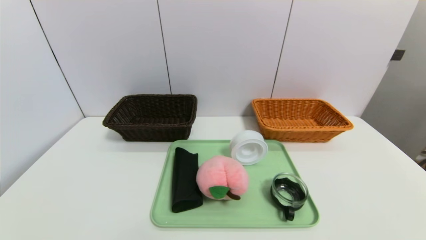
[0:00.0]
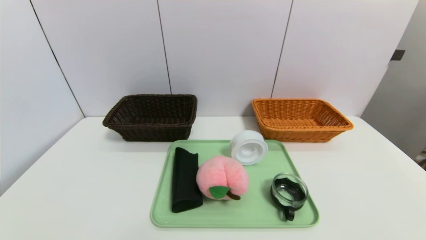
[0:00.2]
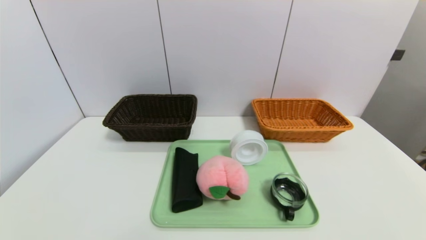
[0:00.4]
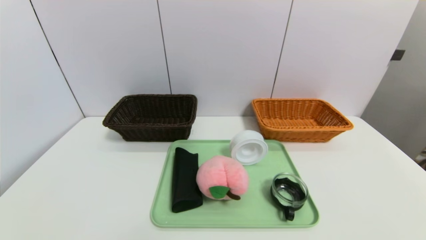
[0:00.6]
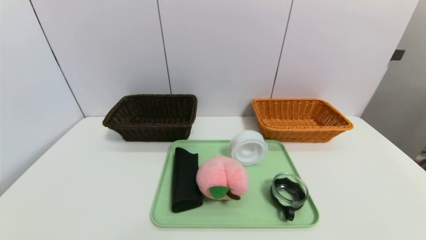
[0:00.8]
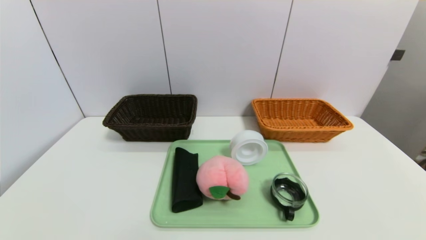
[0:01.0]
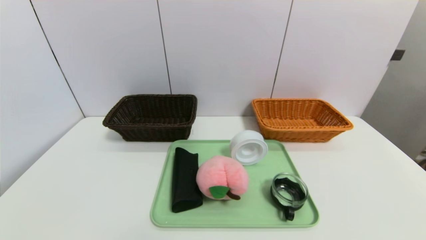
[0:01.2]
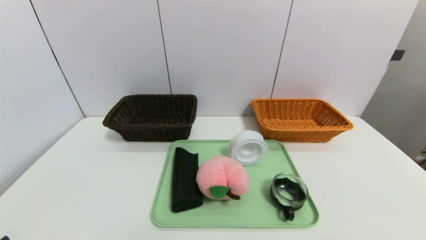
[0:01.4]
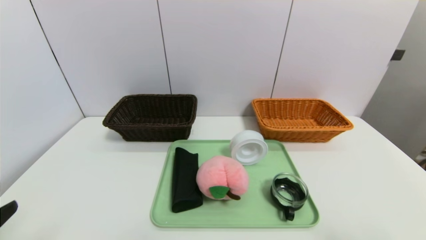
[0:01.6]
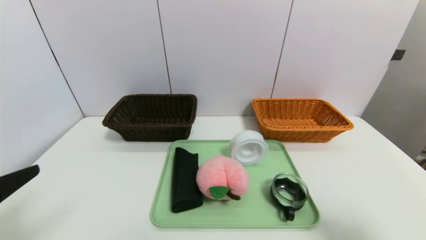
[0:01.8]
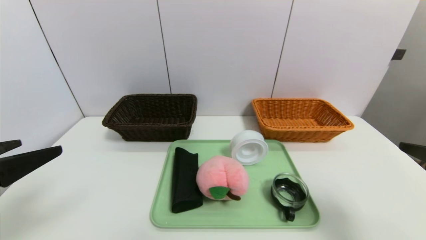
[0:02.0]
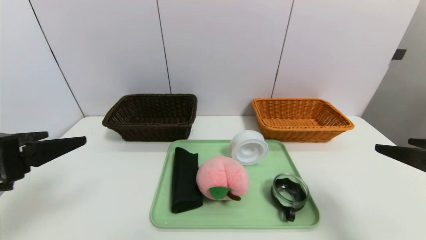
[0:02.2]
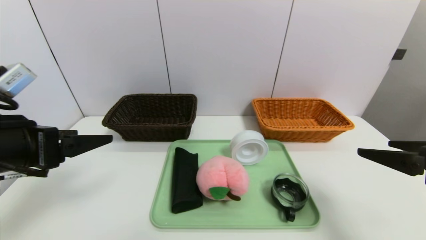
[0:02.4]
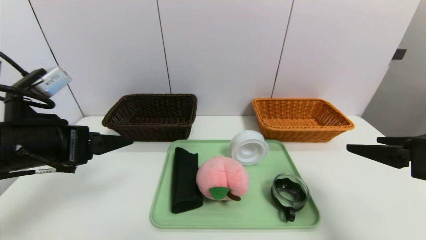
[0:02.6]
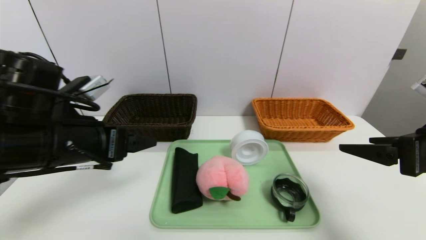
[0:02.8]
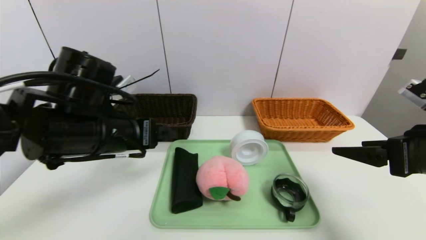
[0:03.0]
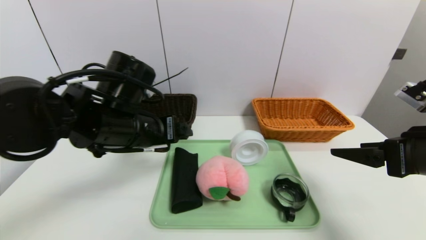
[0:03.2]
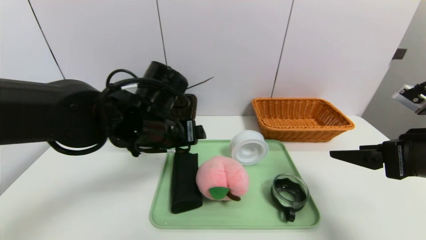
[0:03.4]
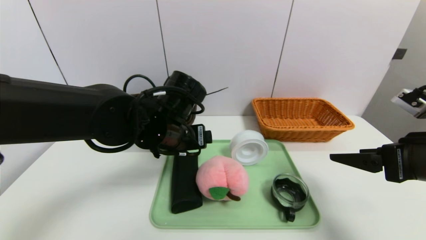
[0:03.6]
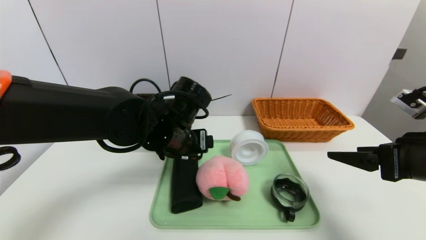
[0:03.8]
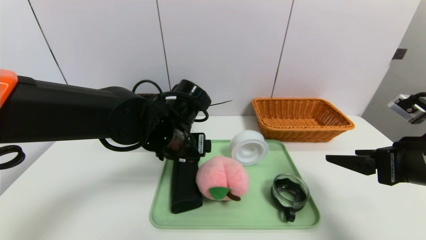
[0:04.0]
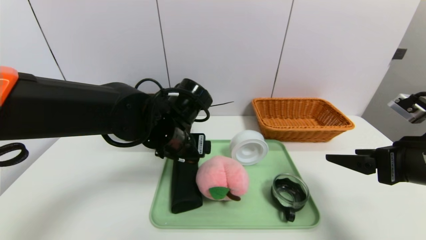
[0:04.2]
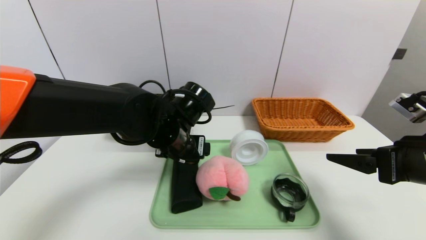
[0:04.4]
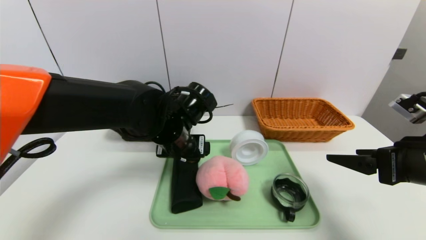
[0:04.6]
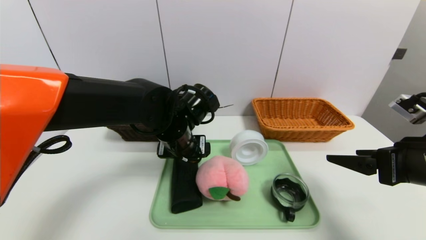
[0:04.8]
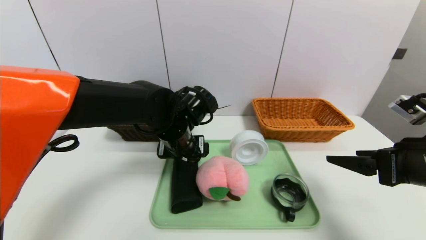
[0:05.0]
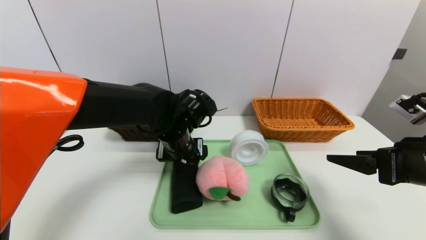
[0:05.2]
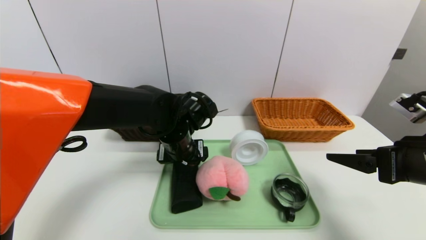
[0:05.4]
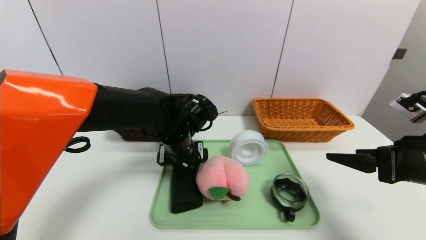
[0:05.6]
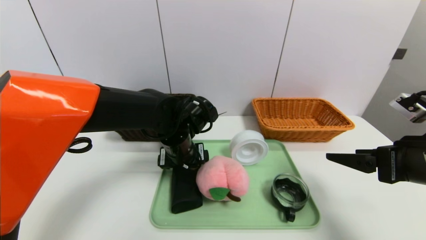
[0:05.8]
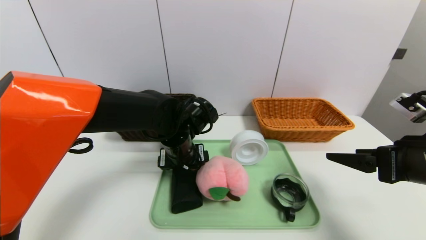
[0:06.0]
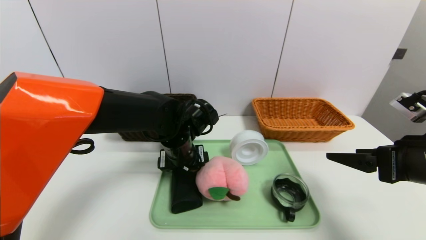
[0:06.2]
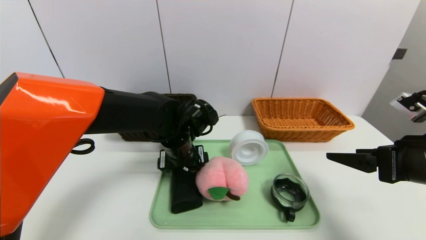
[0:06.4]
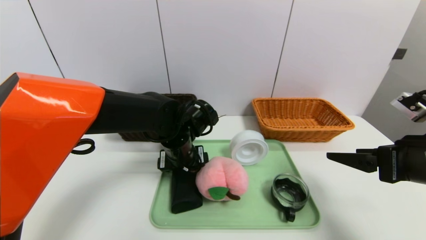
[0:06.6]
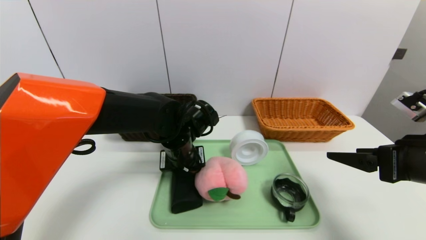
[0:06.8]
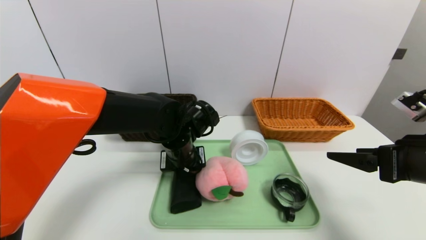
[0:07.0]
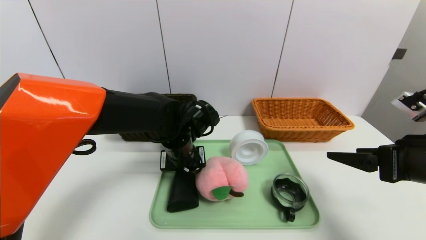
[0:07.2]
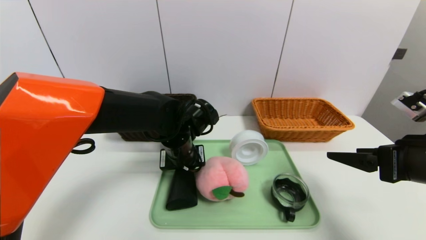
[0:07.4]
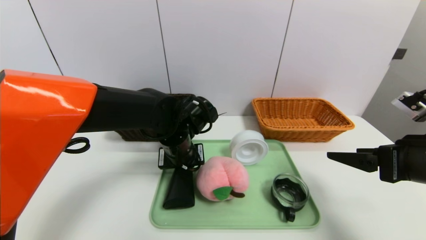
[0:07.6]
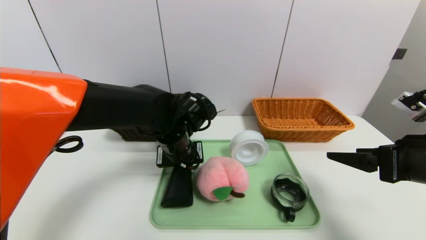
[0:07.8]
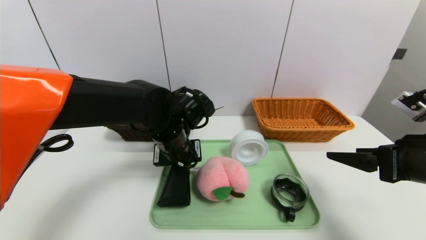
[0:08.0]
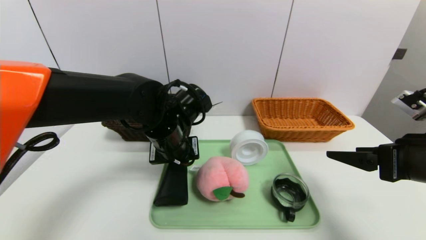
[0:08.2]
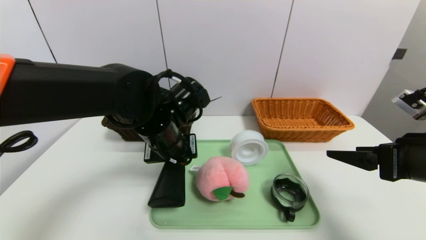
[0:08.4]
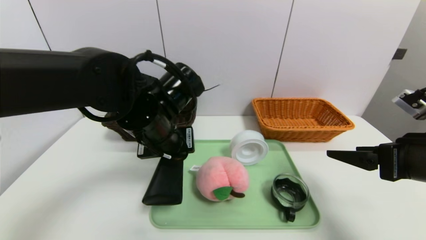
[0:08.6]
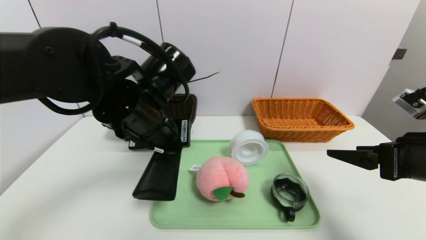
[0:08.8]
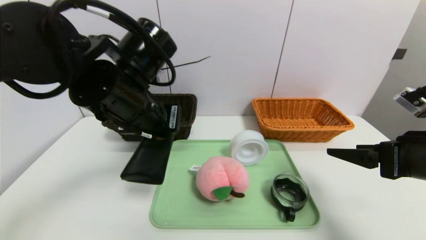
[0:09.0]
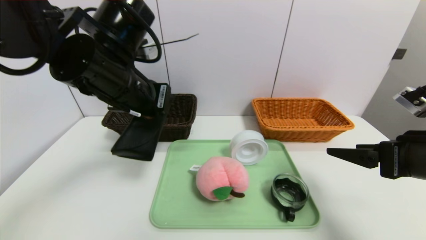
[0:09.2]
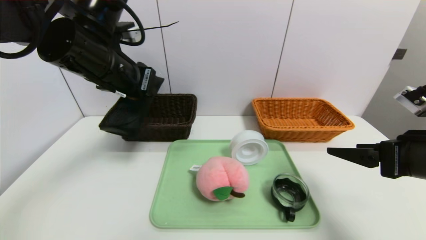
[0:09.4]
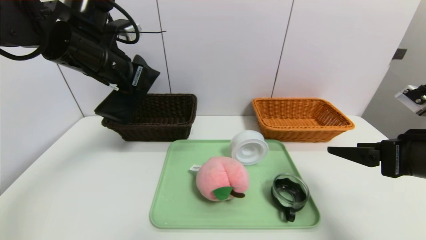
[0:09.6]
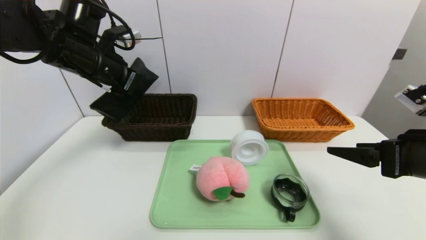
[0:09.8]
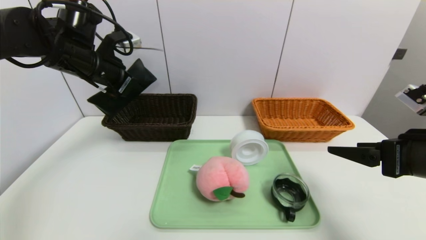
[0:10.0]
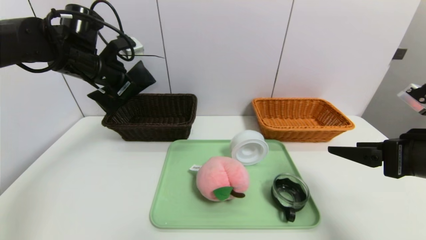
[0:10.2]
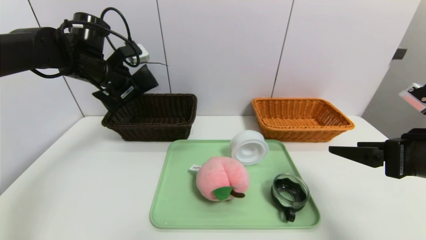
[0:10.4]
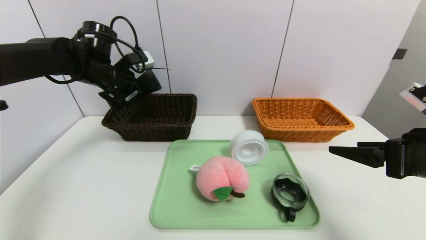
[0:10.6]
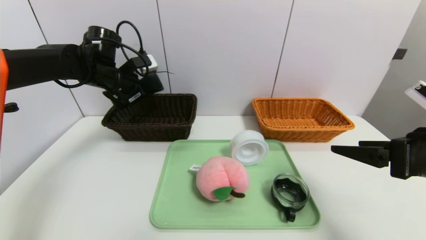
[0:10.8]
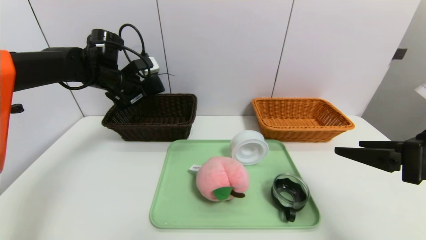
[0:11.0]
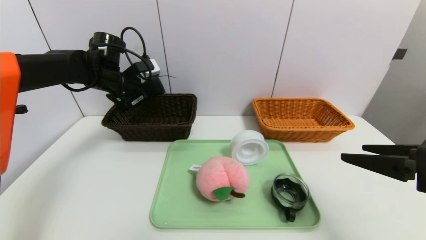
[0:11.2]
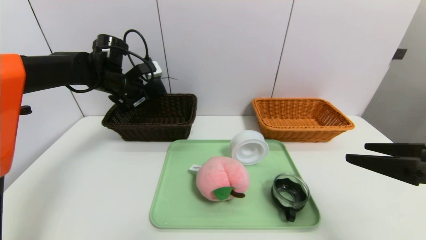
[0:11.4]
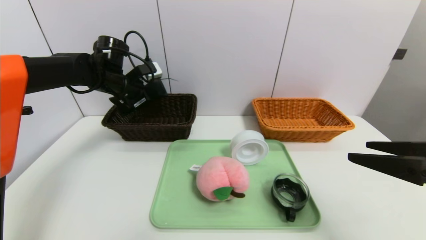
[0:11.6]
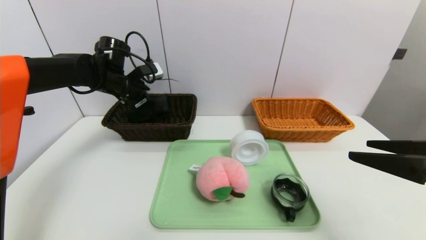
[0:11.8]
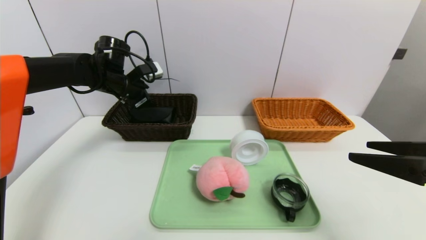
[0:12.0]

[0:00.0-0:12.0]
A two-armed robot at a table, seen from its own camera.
Task of the whole recording: place the food in the right basket with the right gripper, and place the non food items in the left basket with the left gripper.
0:01.6 to 0:03.0: The right gripper travels forward by about 15 cm. Meanwhile the left gripper shifts about 25 cm forward and to the right.
0:03.0 to 0:04.4: The left gripper is displaced to the right, forward and downward by roughly 10 cm.
0:04.4 to 0:06.0: The grippers move only a little.
0:06.0 to 0:07.6: The left gripper closes.
0:07.6 to 0:09.0: The left gripper shifts roughly 15 cm upward, backward and to the left.
0:09.0 to 0:10.4: The left gripper is displaced forward and to the left by about 20 cm.
0:10.4 to 0:12.0: The left gripper changes place by about 5 cm, and opens up.

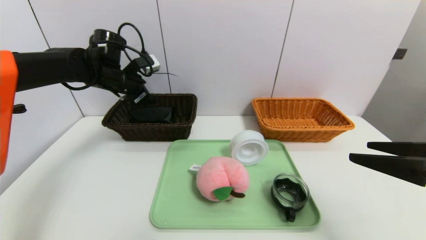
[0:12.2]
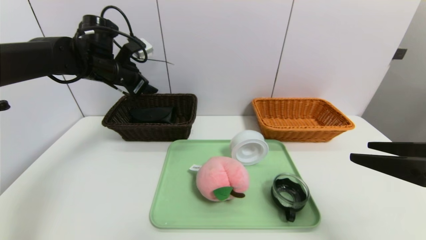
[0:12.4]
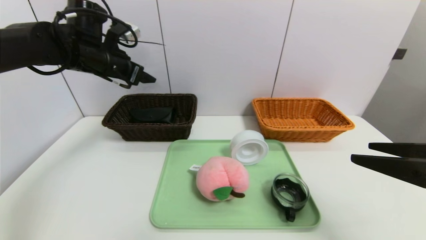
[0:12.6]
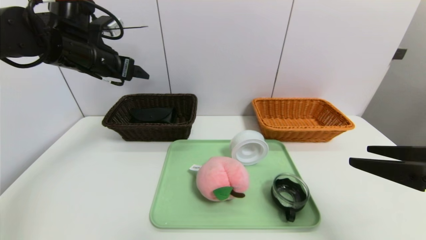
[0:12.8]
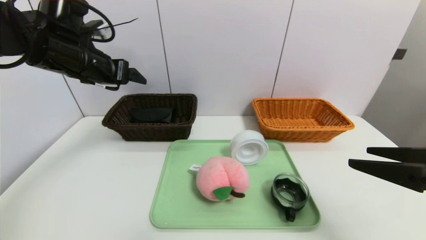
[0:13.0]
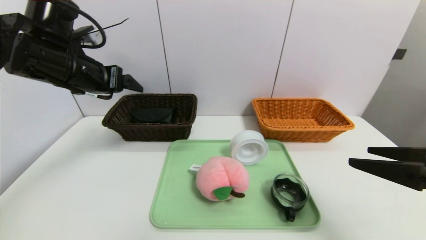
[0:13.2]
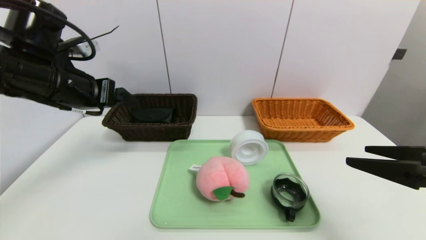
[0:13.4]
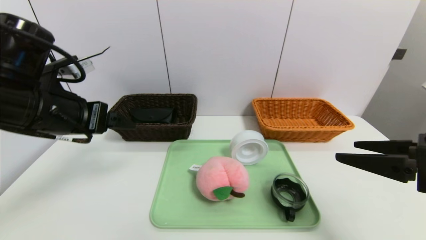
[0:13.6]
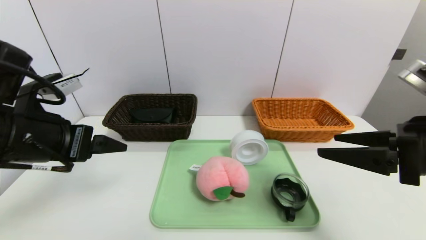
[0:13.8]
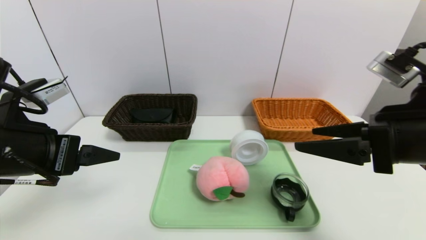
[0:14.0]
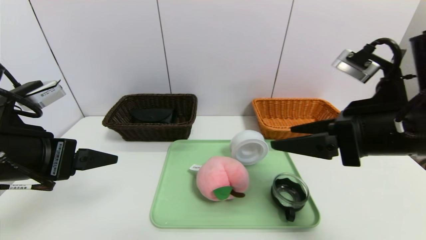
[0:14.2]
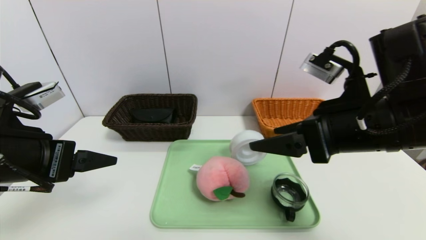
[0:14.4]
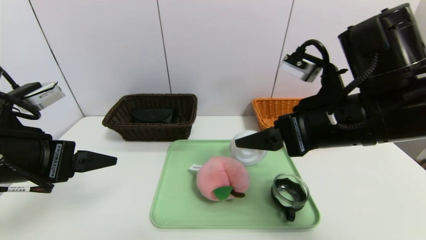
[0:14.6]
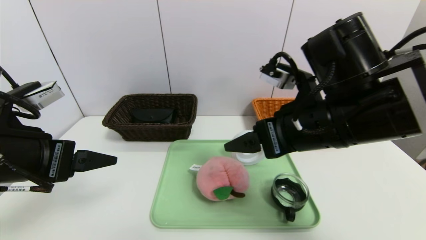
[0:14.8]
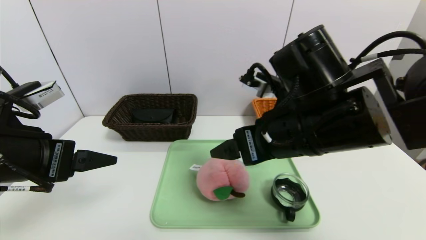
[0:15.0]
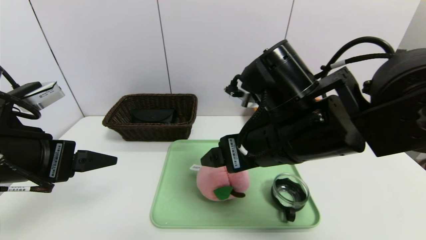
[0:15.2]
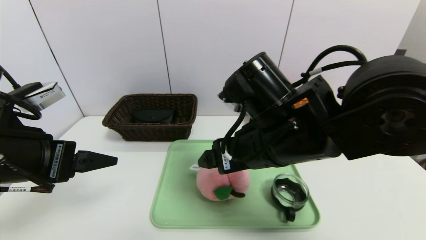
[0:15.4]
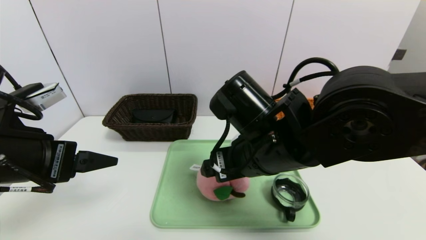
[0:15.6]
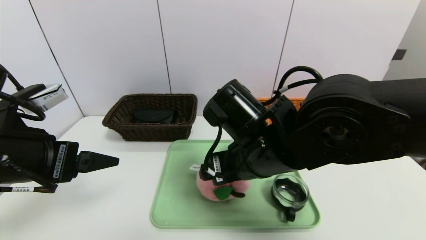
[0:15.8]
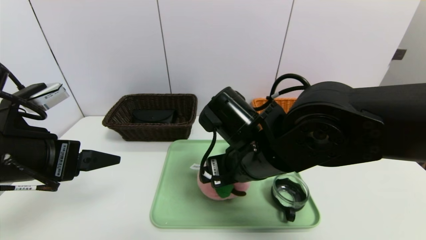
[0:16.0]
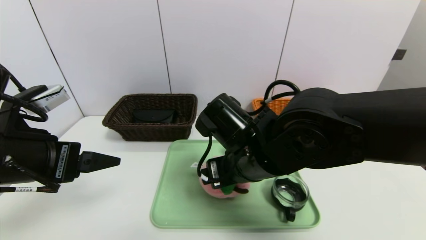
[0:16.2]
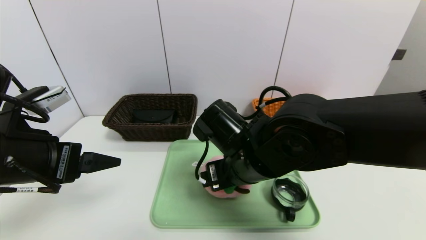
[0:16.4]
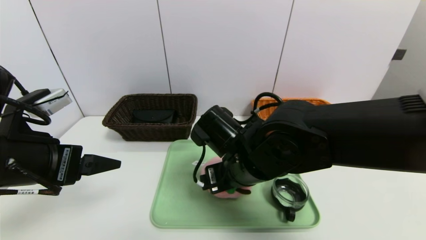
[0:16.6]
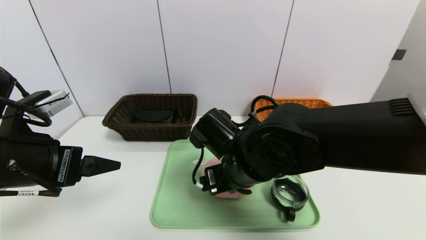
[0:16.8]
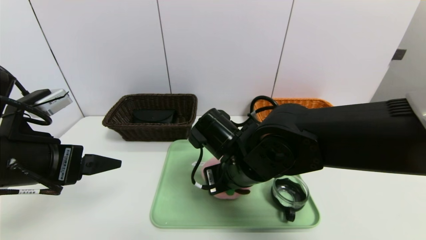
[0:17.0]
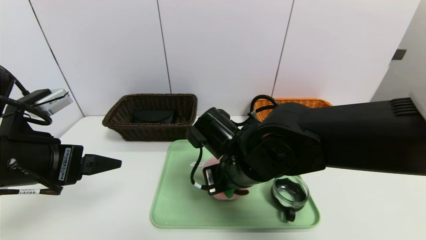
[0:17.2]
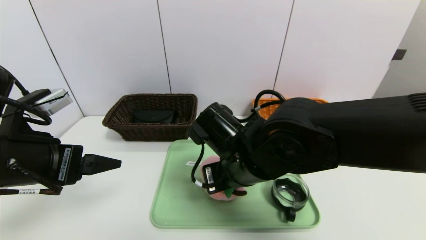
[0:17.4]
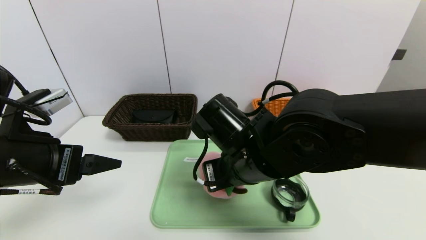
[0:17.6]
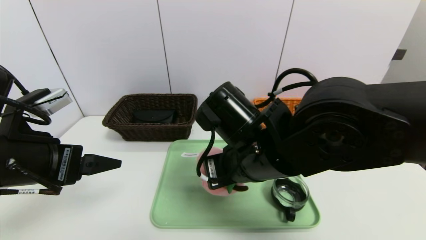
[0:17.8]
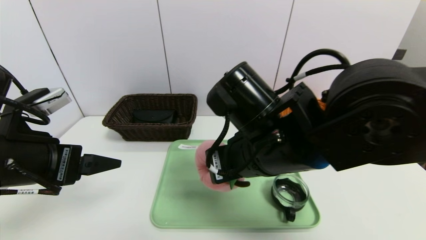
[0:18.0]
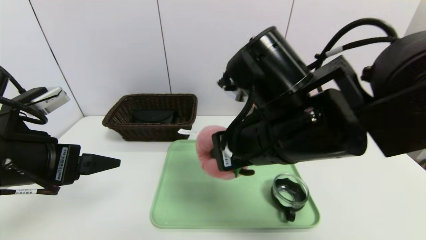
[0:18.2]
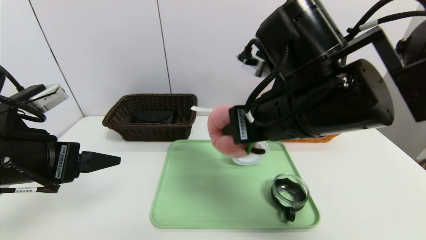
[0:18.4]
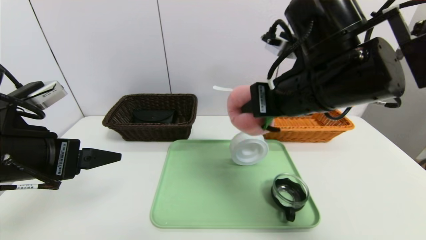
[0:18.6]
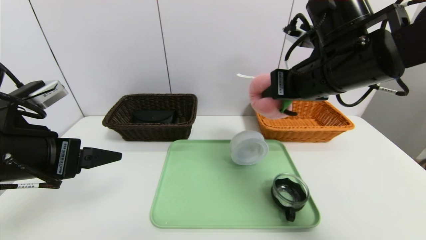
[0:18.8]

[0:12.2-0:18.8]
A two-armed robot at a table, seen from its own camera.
Task of the whole recording: place the food in the right basket with the right gripper, and place the non food items in the left basket with the left gripper.
0:12.2 to 0:13.8: The left gripper moves backward, approximately 25 cm.
0:13.8 to 0:15.4: The right gripper travels to the left by some 20 cm.
0:15.4 to 0:17.2: The right gripper heads downward, covering roughly 5 cm, and closes.
0:17.2 to 0:18.8: The right gripper shifts about 20 cm upward and to the right.
